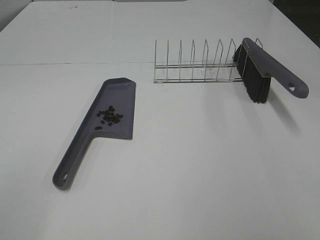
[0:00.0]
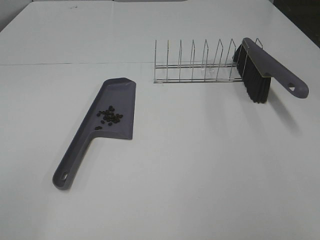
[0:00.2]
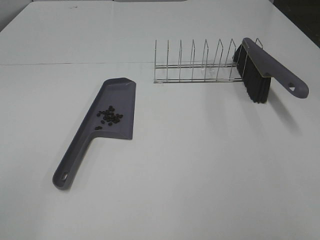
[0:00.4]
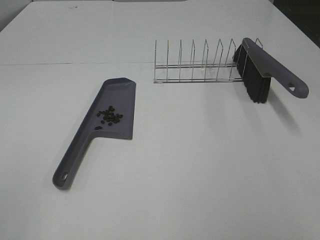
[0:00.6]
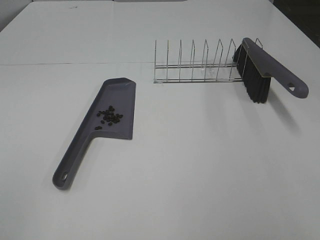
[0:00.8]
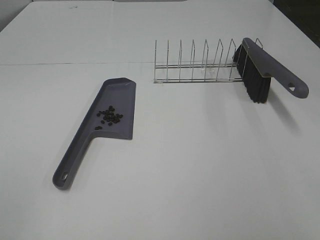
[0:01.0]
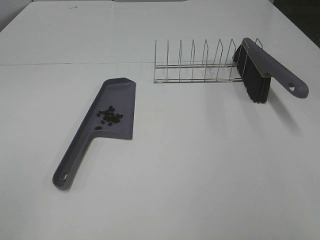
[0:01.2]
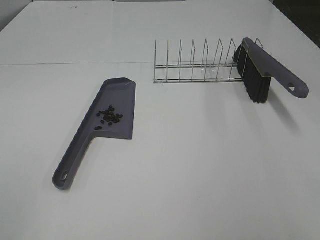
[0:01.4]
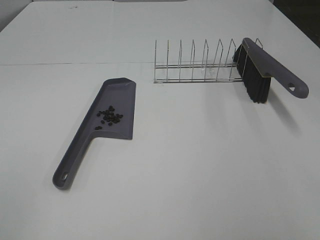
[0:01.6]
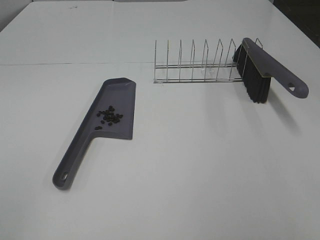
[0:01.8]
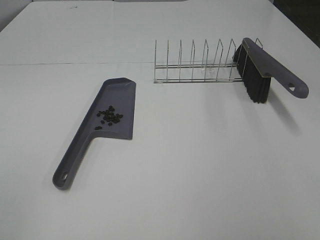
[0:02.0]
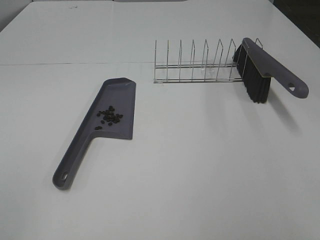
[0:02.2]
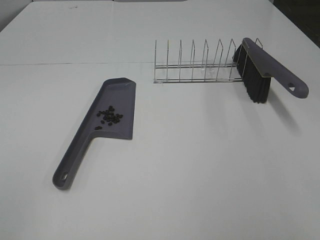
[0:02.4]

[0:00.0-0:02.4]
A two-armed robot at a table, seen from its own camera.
Task of the whole recording: Sweep Coffee Bean.
0:01.2 to 0:02.4: Neither gripper changes place.

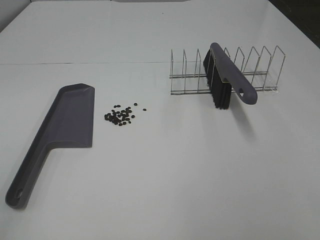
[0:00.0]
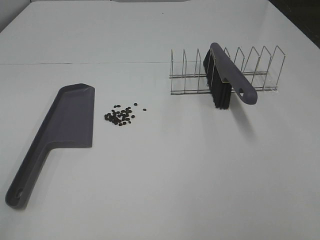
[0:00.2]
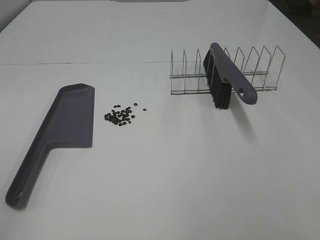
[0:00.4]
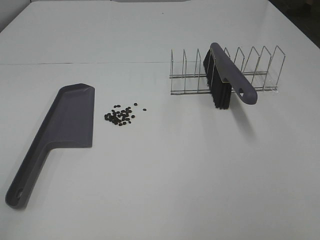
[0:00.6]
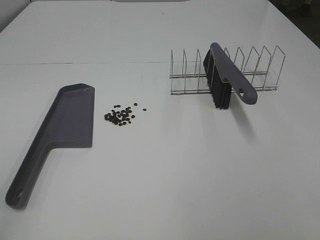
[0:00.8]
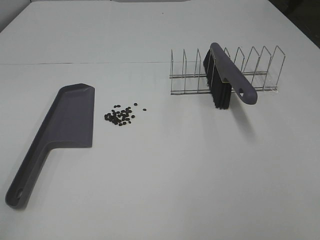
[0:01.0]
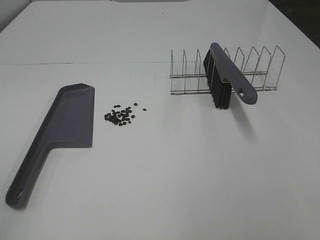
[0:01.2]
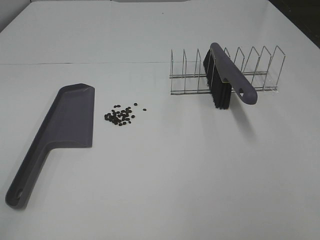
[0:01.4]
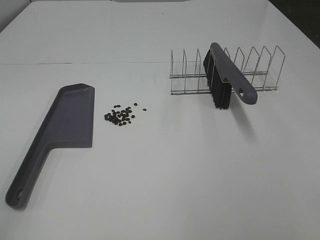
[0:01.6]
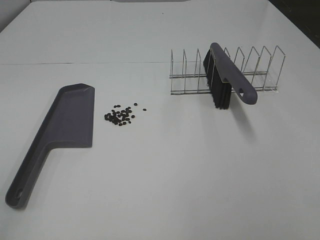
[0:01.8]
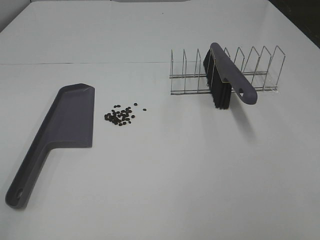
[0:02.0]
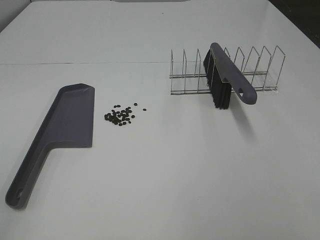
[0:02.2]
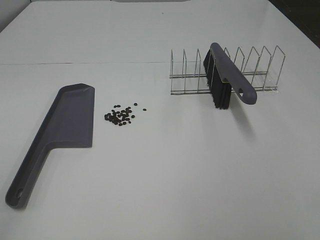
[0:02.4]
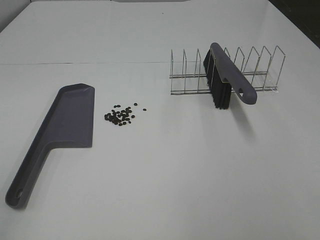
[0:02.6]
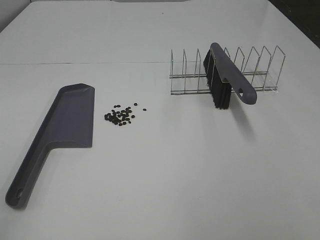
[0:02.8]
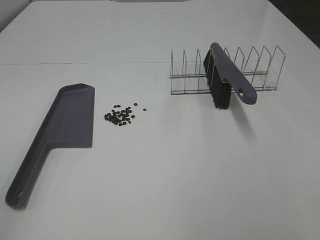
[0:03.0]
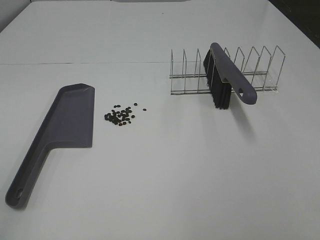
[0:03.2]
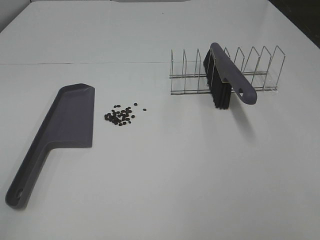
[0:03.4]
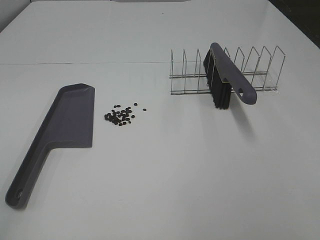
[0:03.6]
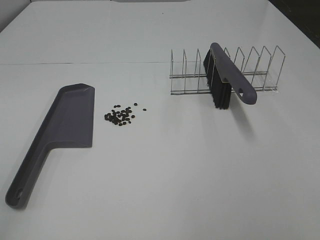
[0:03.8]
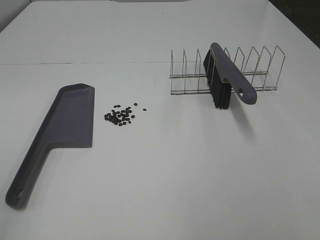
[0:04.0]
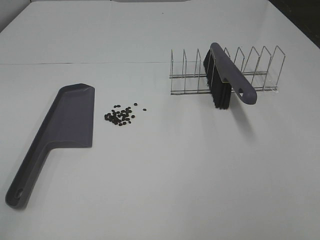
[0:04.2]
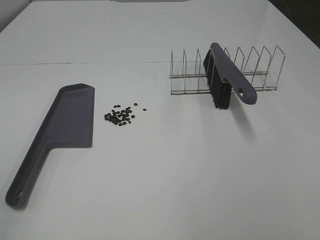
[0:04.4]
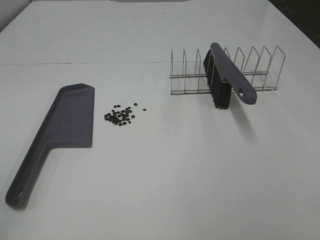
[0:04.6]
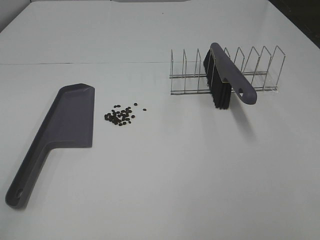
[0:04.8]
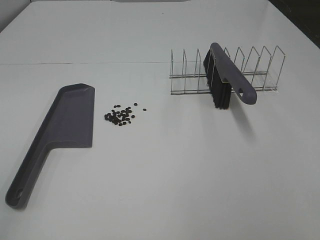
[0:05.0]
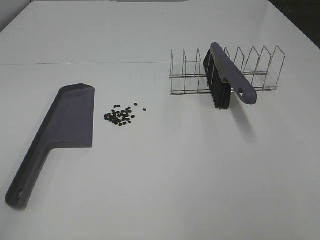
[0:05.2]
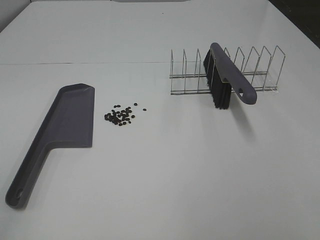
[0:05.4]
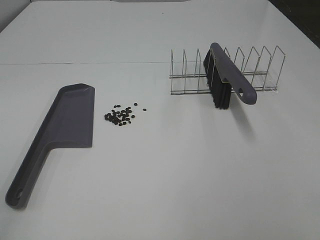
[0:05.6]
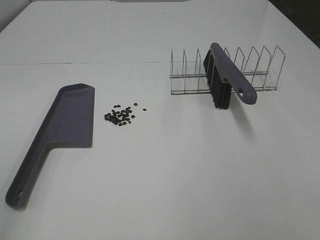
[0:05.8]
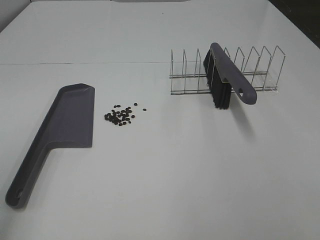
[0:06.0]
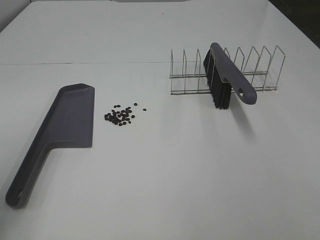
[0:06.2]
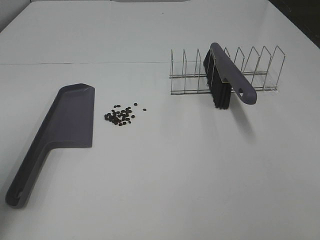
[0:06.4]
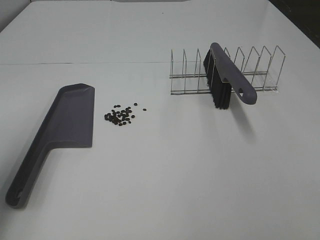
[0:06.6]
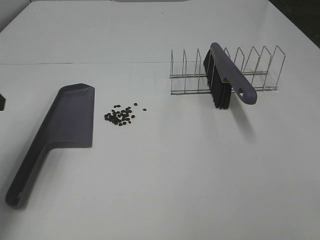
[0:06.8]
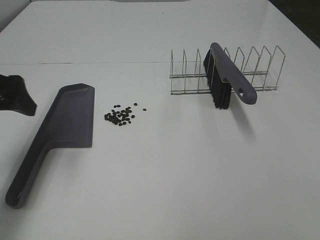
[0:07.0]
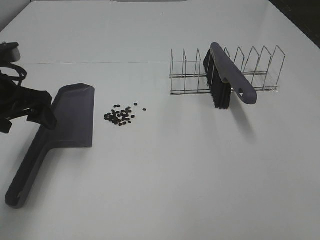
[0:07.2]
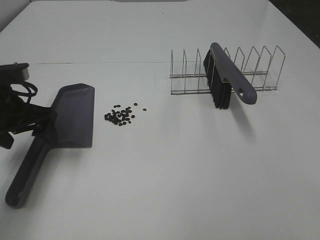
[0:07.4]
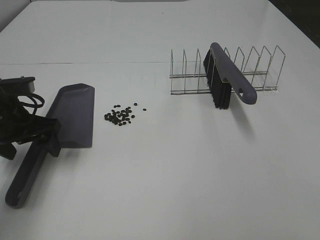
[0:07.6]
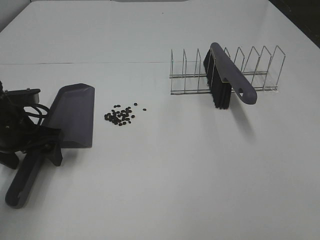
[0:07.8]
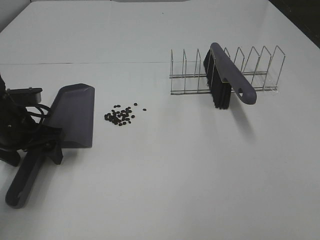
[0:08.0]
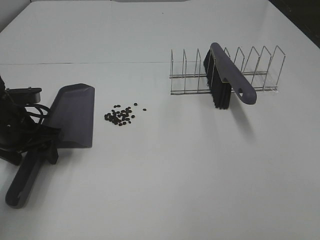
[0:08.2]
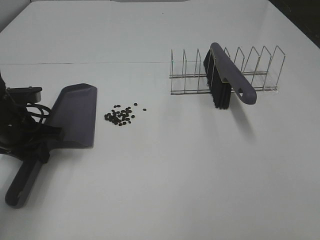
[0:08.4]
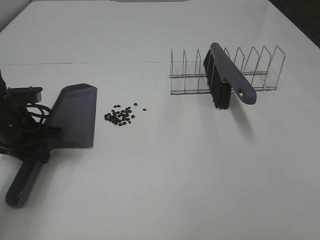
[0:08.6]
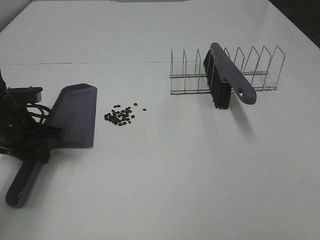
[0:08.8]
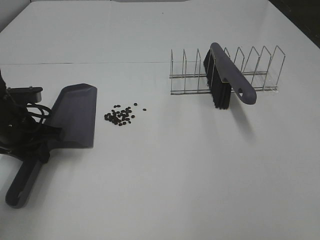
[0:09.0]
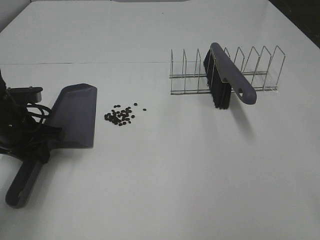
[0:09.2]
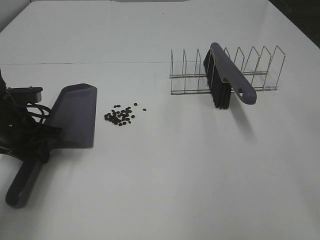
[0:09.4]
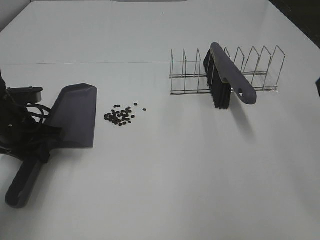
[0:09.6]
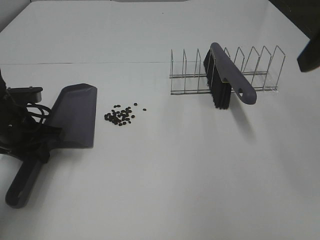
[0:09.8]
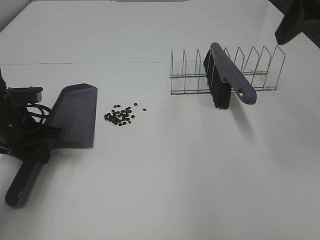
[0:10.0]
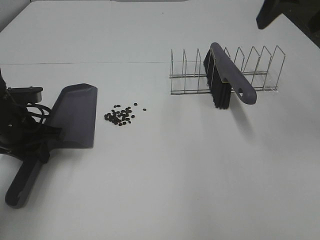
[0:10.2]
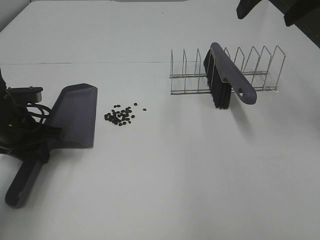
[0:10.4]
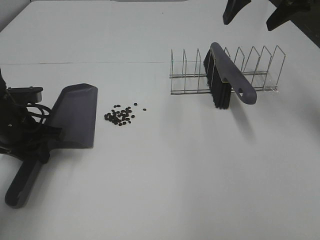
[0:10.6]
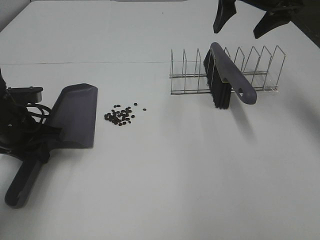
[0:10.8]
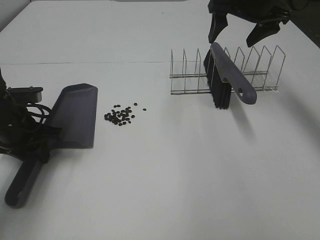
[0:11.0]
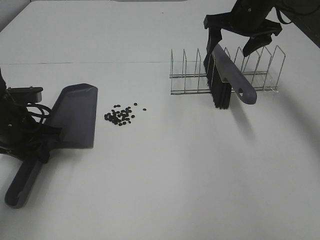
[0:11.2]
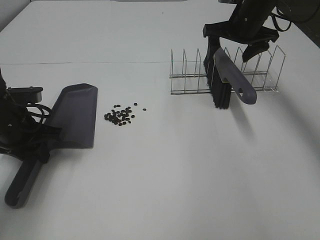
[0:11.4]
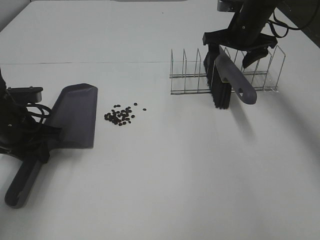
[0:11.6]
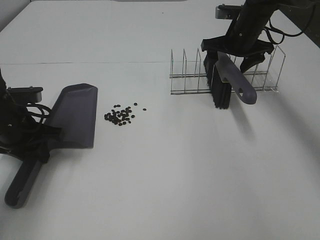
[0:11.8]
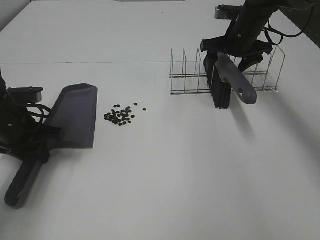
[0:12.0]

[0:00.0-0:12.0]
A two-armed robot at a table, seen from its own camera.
Task of the whole recording: Sweep Coffee Bean.
Step, 0:00.0 to 0:08.8: Left hand: grab the dustpan.
0:00.0 to 0:04.4: Both grippers stay put.
0:06.0 to 0:07.6: The left gripper travels forward and downward by approximately 30 cm.
0:07.6 to 0:09.0: The left gripper closes.
0:10.4 to 0:12.0: The right gripper moves downward and forward, some 25 cm.

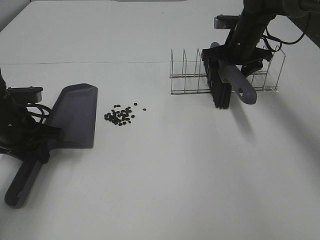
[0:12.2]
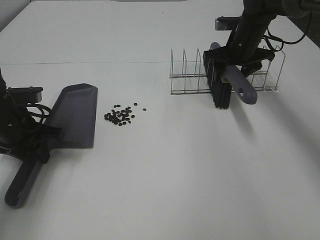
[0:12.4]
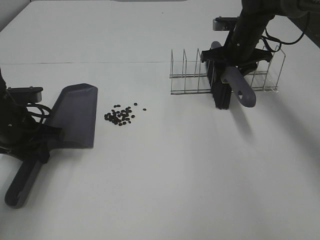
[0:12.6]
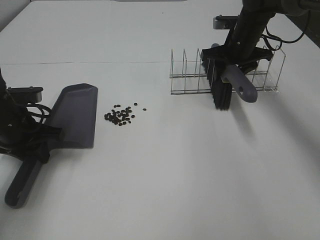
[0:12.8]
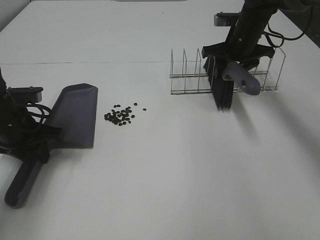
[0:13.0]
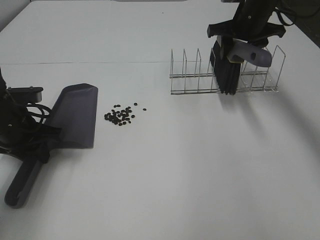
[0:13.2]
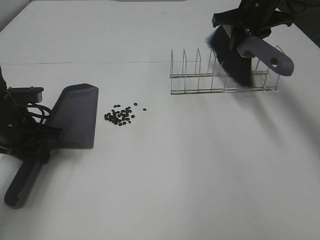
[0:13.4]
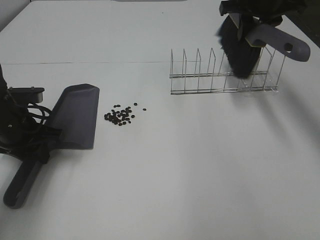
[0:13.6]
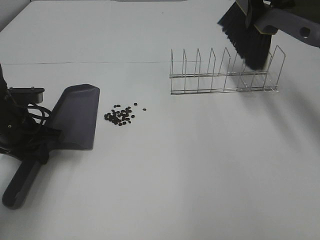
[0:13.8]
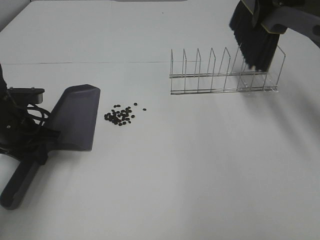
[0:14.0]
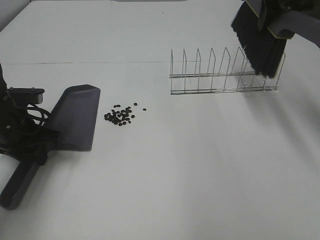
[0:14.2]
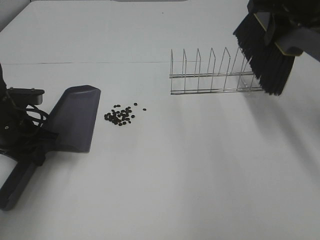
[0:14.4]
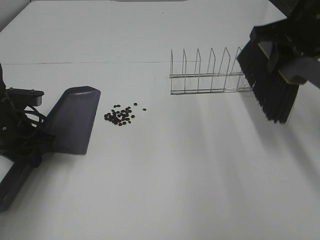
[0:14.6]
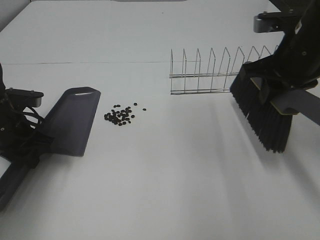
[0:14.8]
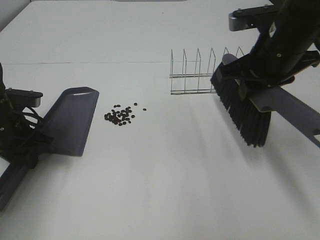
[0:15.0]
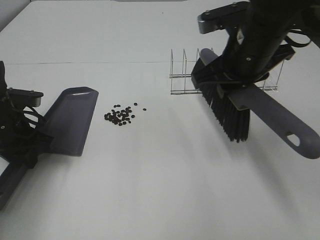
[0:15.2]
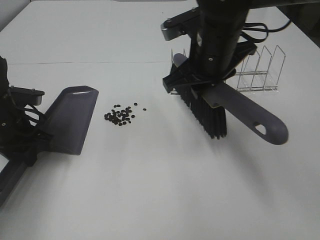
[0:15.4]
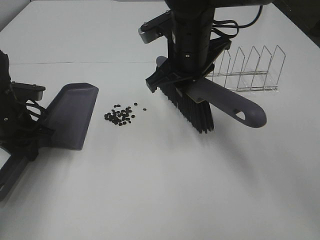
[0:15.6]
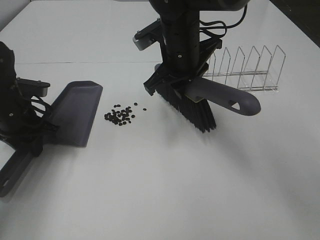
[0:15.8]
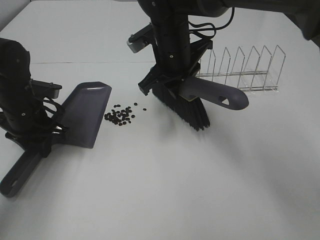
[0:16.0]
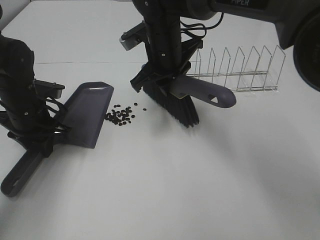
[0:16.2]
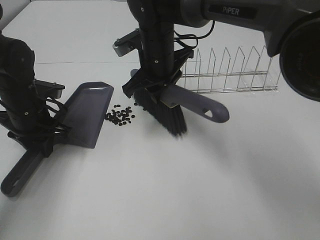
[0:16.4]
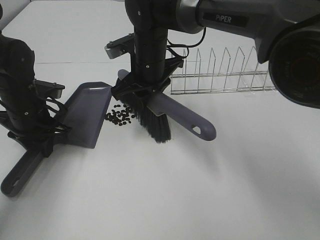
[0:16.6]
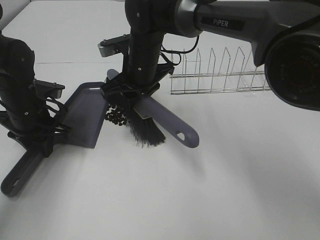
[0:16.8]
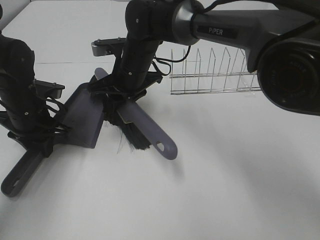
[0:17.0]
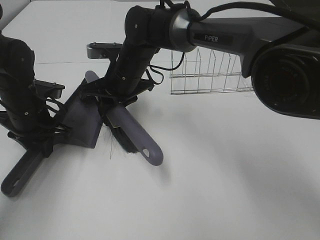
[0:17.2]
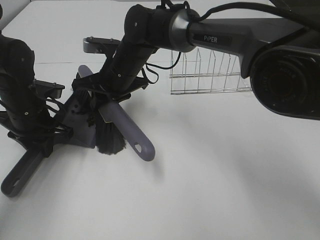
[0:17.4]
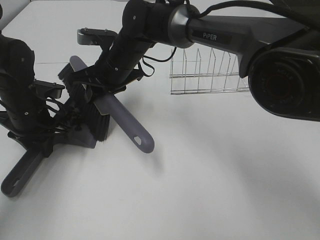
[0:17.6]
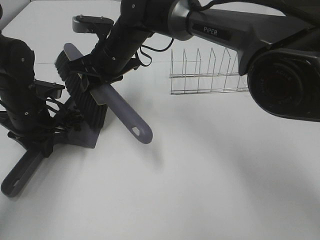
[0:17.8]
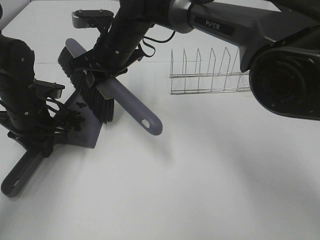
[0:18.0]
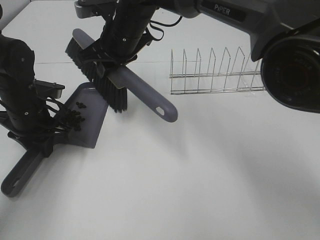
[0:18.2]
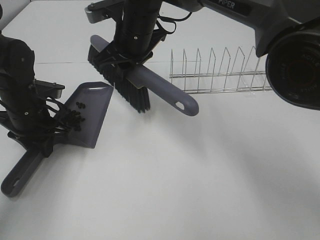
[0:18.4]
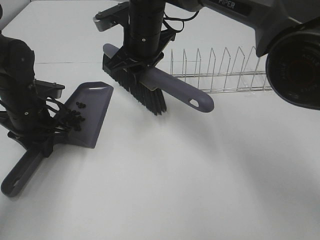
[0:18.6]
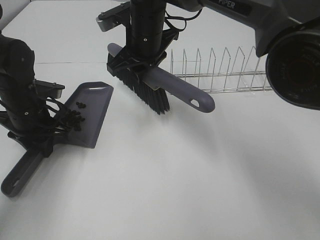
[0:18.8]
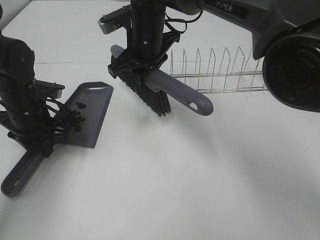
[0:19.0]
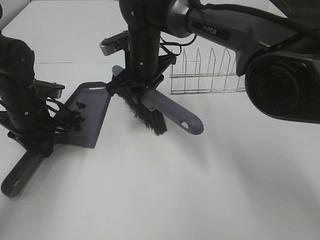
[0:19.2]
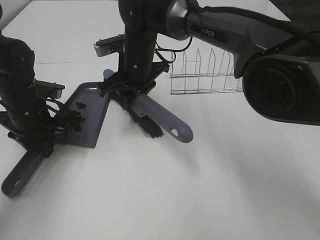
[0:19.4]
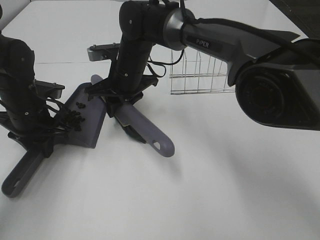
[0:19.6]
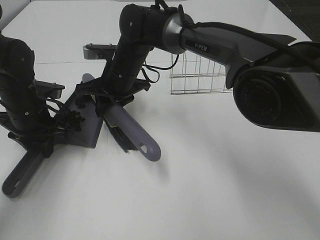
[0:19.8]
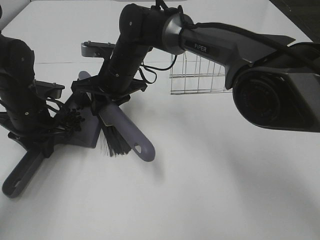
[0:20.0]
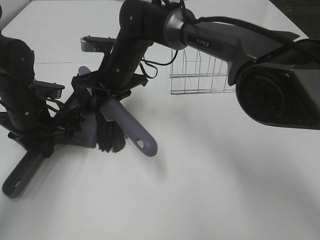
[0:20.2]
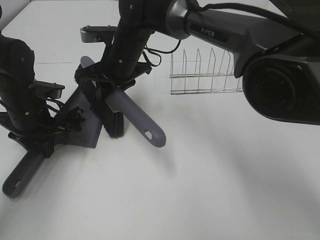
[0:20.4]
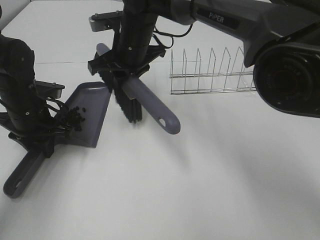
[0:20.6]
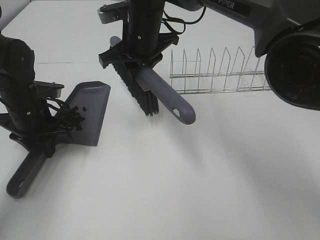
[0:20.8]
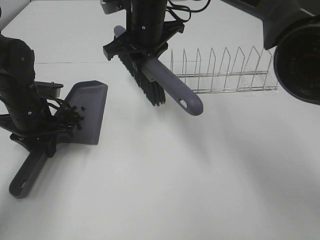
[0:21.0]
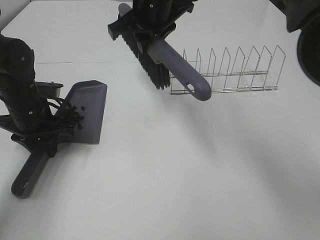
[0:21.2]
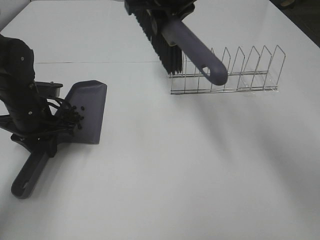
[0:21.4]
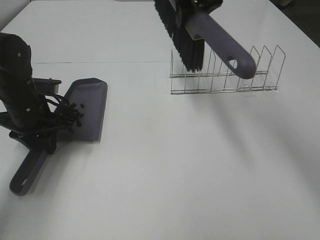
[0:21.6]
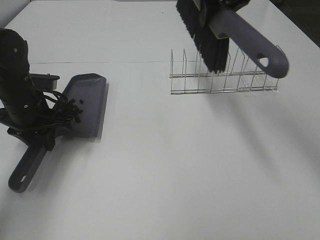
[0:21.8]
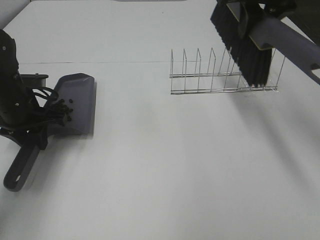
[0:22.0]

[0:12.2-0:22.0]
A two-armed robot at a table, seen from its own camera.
Task of the whole recording: Sweep Coffee Bean.
Step, 0:12.8 to 0:20.4: Right hand:sweep the coffee beans into the dustpan.
0:12.2 to 0:13.6: The right gripper shifts roughly 10 cm upward, and closes.
0:13.6 to 0:15.0: The right gripper goes approximately 15 cm backward.
0:15.0 to 0:16.4: The right gripper travels to the left, forward and downward by some 20 cm.
0:16.4 to 0:17.8: The right gripper moves to the left, approximately 5 cm.
0:20.6 to 0:22.0: The right gripper goes some 25 cm to the right and upward.
